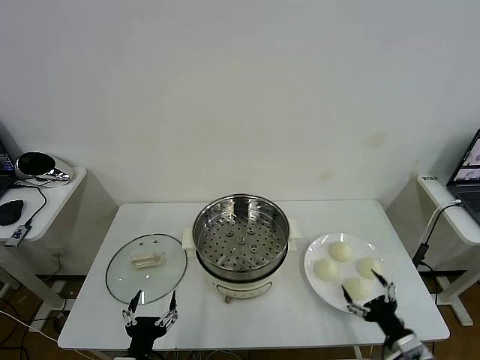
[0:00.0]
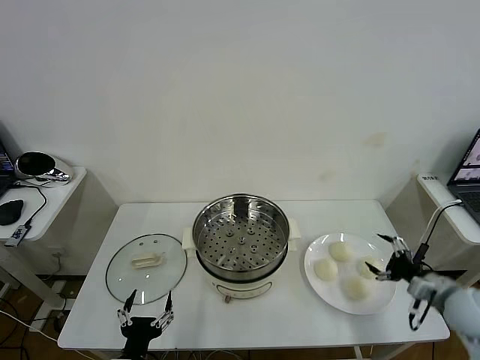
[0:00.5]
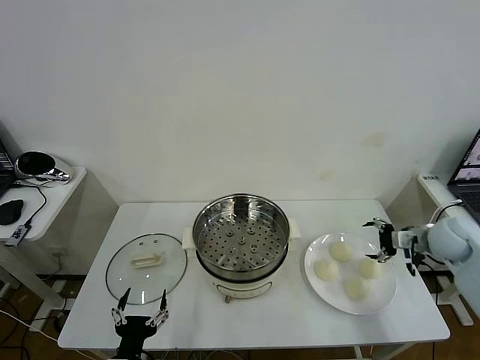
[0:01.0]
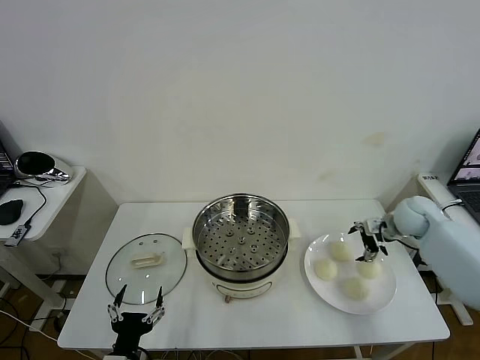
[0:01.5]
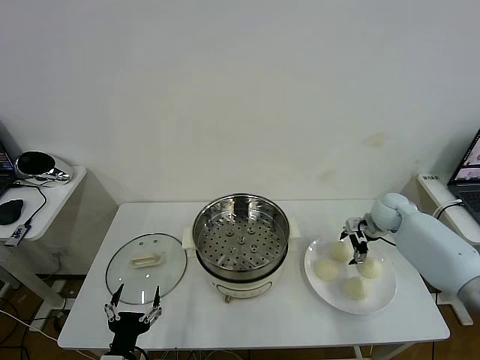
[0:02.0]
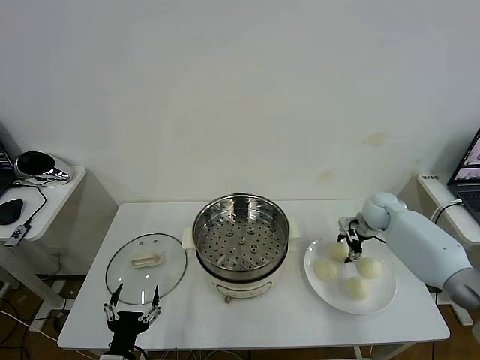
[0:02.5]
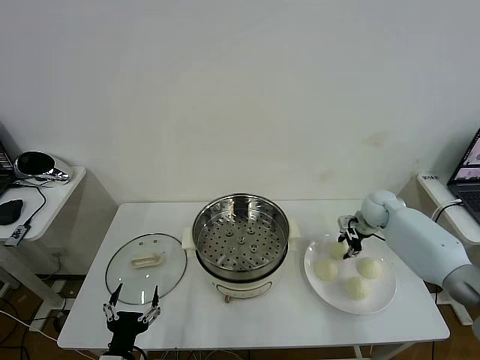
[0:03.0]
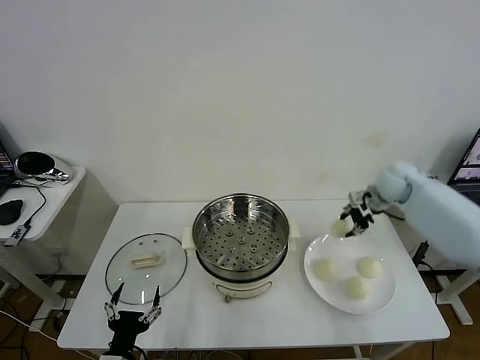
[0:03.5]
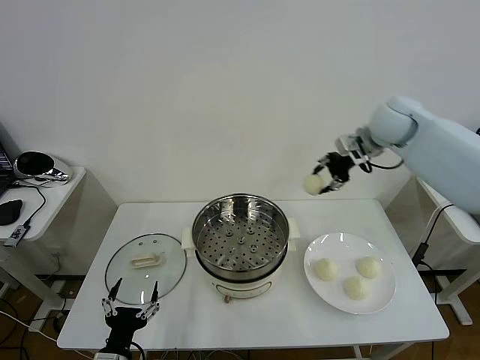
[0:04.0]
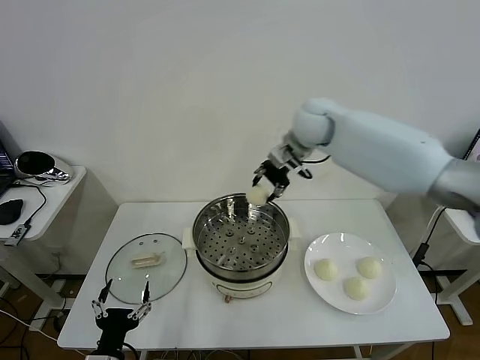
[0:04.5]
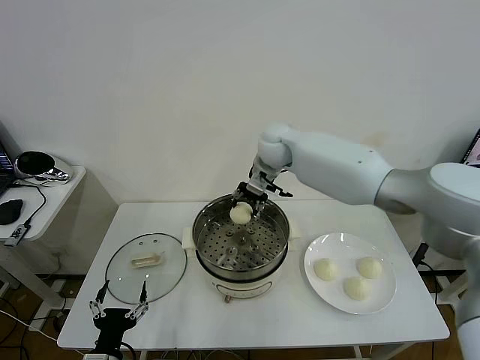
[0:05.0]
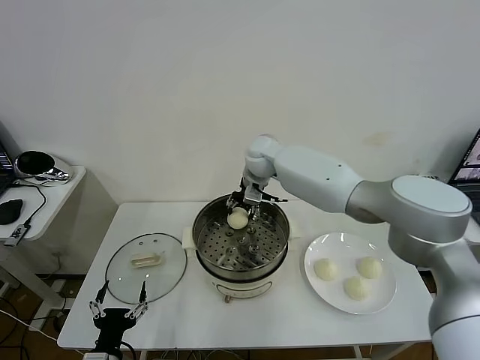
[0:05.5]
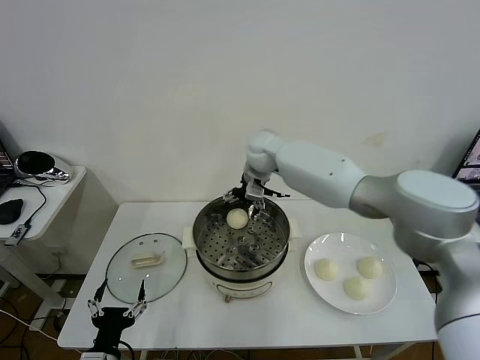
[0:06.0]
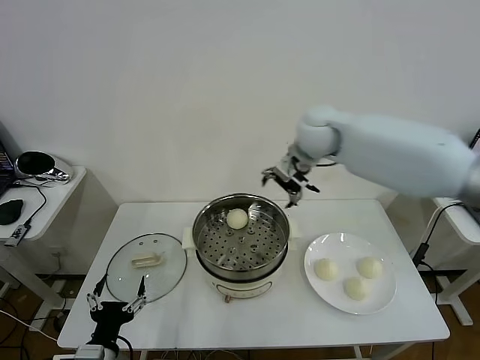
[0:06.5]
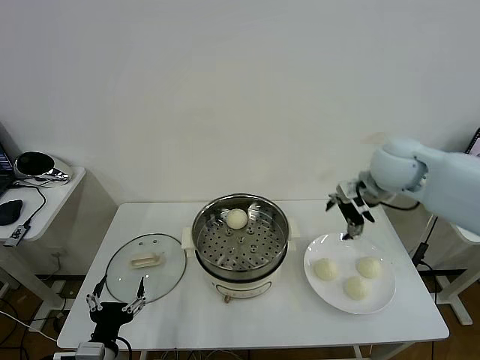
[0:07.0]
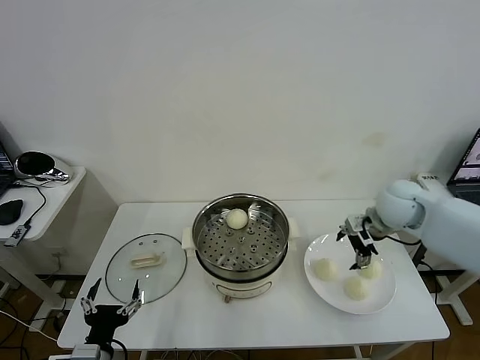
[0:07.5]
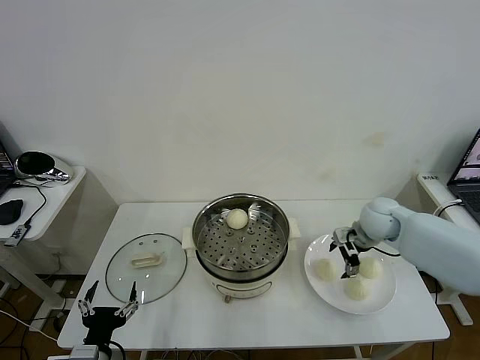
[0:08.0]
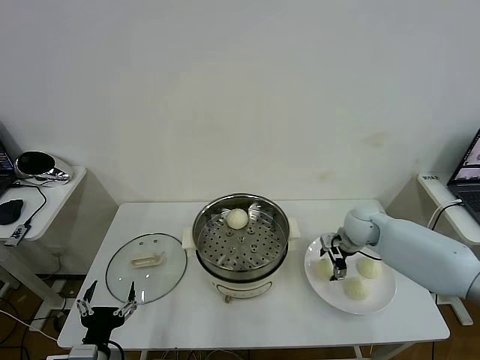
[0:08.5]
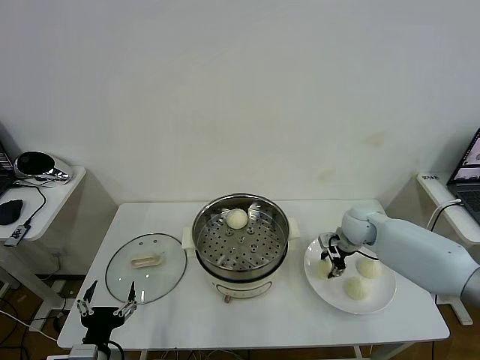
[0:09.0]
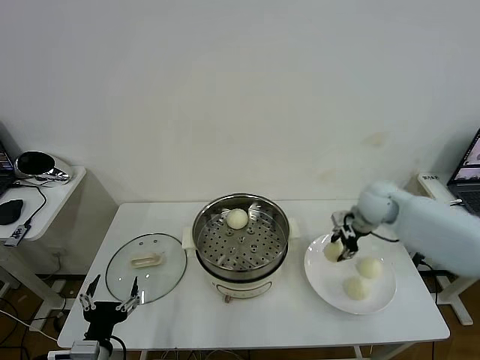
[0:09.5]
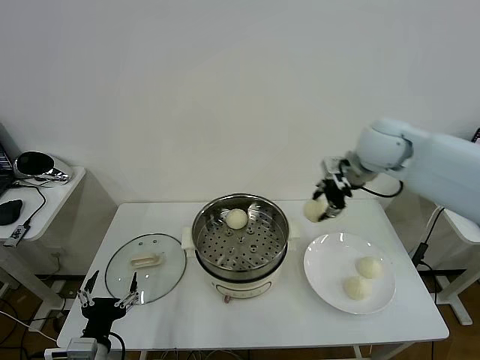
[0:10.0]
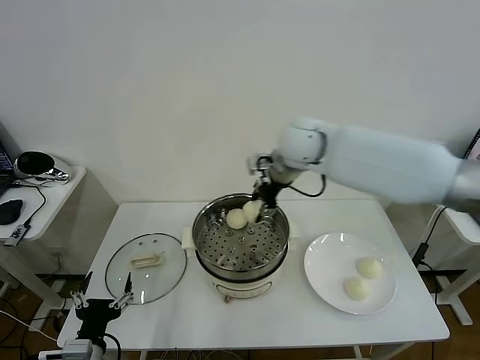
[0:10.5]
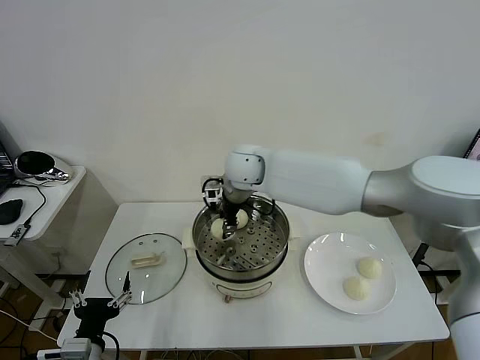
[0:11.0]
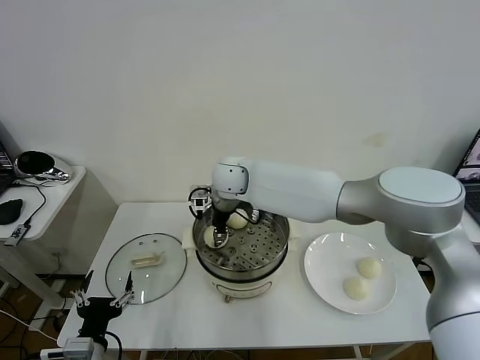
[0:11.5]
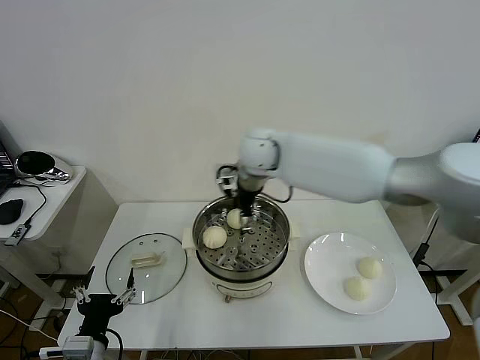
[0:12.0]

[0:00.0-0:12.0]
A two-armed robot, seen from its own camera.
Task of the whole recording: take steamed baozi put them in steamer then cover it.
Step, 0:00.0 to 0:02.5: Grasp the baozi in the plate with right gripper.
Step, 0:03.0 to 0:05.5: Place the baozi on the steamer with right gripper.
Step, 0:06.5 to 0:08.5: Grasp the baozi in the plate with right gripper.
Step, 0:09.0 to 0:11.5: Place the baozi on the steamer with right gripper.
0:02.0 to 0:04.0: The right gripper travels upward and to the left by about 30 cm, and closes its fingers.
0:04.0 to 0:06.0: The right gripper goes roughly 25 cm to the left and downward, and opens.
0:06.0 to 0:08.0: The right gripper travels to the right, downward and backward by about 30 cm.
0:08.0 to 0:10.0: The right gripper moves upward, some 20 cm, and closes.
0:10.0 to 0:12.0: The right gripper moves to the left, about 20 cm, and opens its fingers.

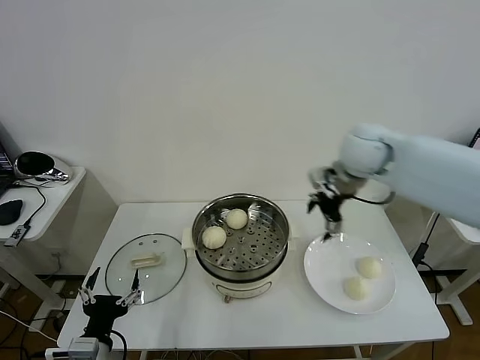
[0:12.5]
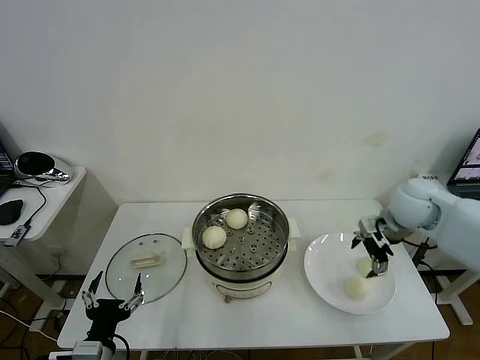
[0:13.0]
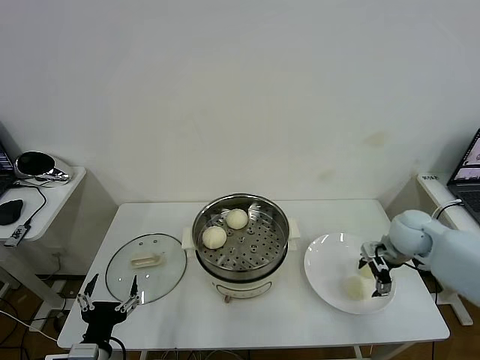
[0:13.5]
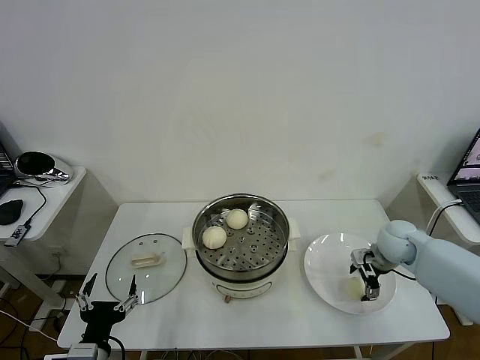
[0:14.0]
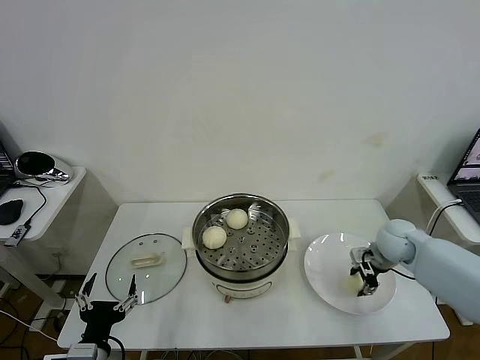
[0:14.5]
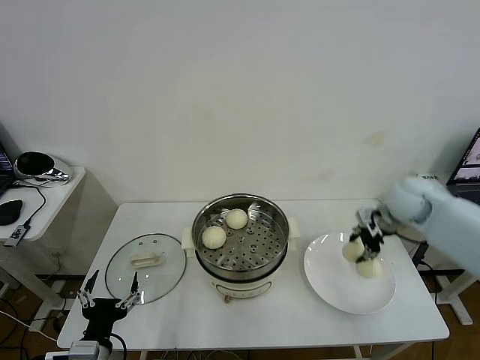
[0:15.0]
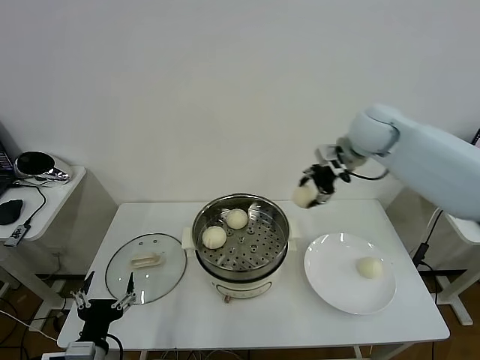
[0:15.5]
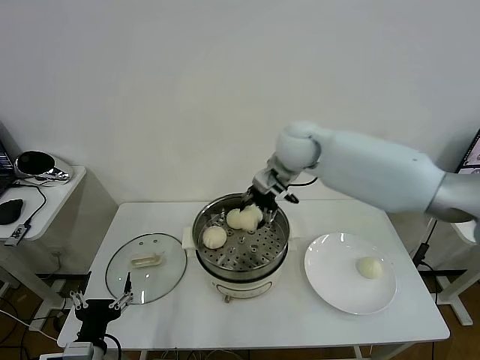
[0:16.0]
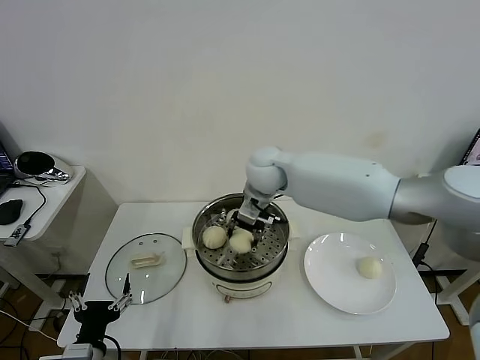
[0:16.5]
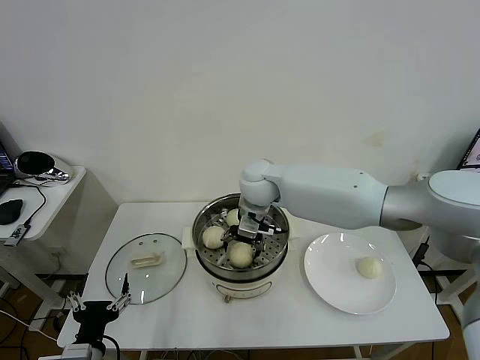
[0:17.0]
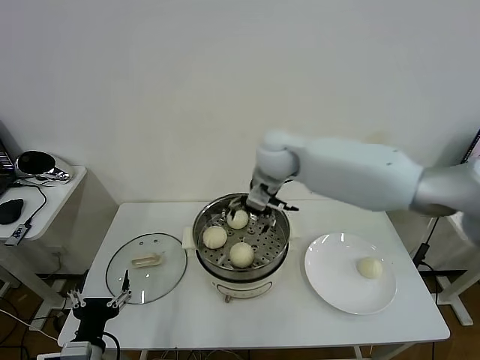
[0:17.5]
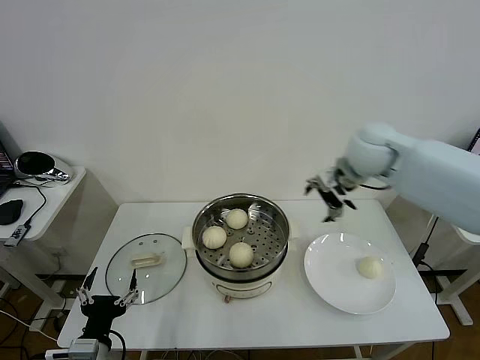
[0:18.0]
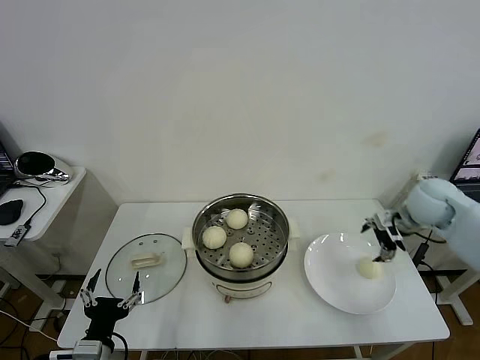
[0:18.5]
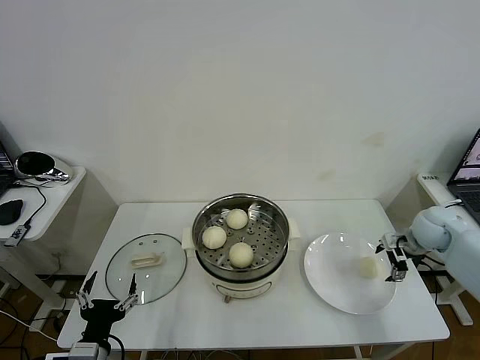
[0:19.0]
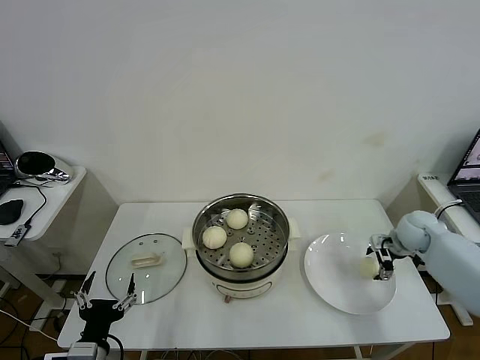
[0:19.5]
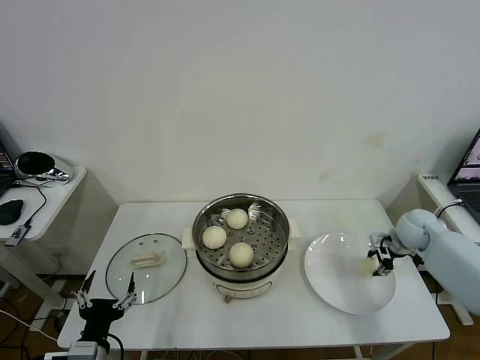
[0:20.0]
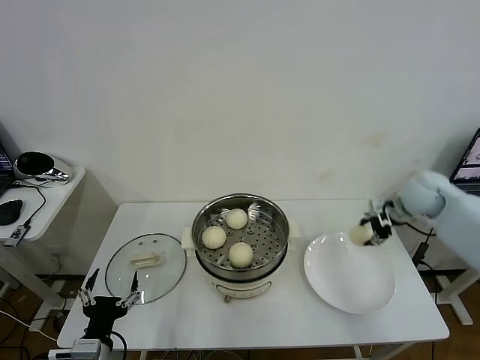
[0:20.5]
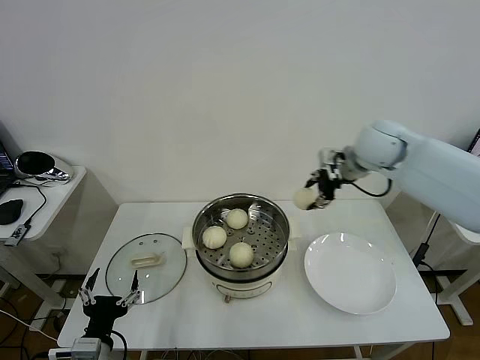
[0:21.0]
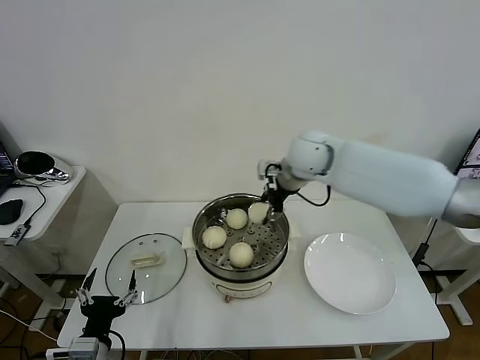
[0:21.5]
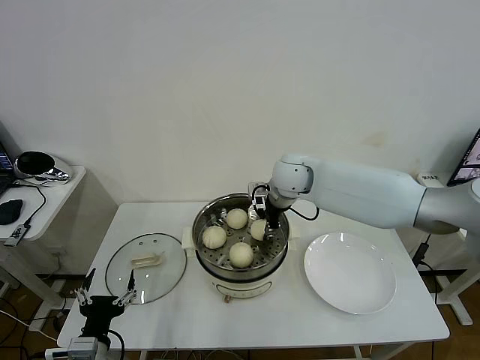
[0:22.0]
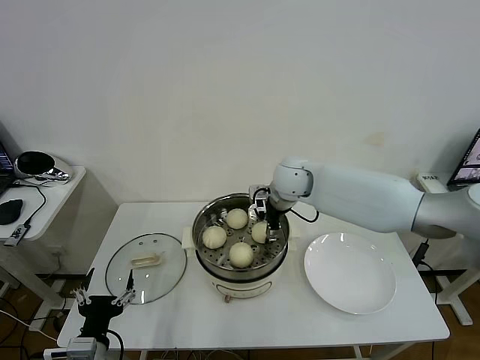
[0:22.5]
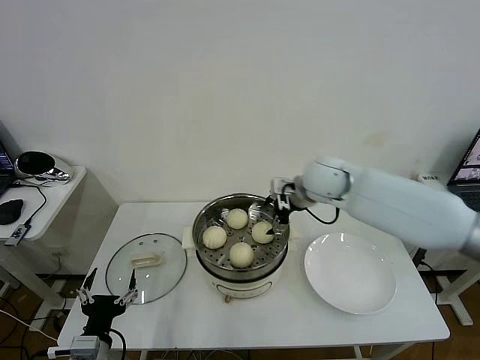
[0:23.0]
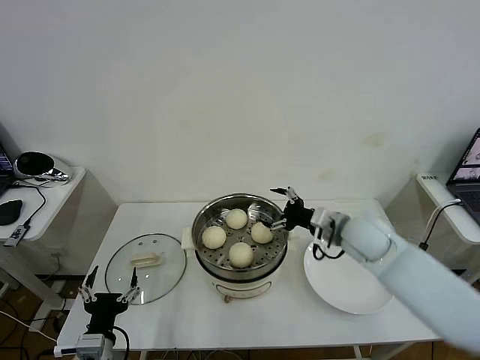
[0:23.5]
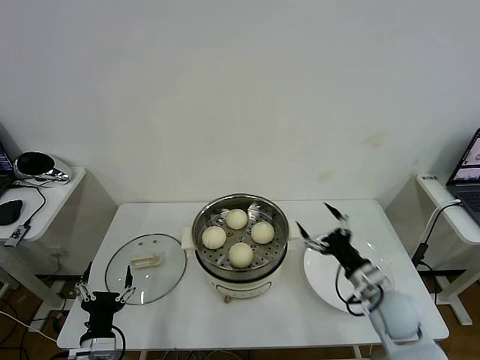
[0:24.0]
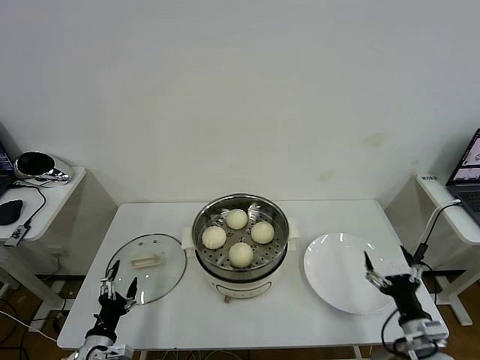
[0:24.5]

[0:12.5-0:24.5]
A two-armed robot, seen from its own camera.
Task of the whole recording: take steamed baozi put them in steamer then cover it.
Step, 0:12.5 to 0:14.0: Grasp the baozi in the plate with right gripper.
Step, 0:14.5 to 0:17.0: Place the baozi on the steamer with right gripper.
Step, 0:18.0 to 0:19.5: Grasp the baozi in the plate with right gripper.
Step, 0:20.0 to 0:22.5: Place the baozi on the steamer with right gripper.
0:12.5 to 0:14.5: The right gripper goes some 25 cm downward and to the right, and closes.
0:14.5 to 0:16.5: The right gripper travels to the left and upward by some 35 cm.
0:16.5 to 0:18.5: The right gripper moves to the right, about 35 cm, and opens up.
0:18.5 to 0:20.5: The right gripper reaches roughly 10 cm downward, then returns, and closes.
0:20.5 to 0:22.5: The right gripper travels to the left by some 30 cm, and opens its fingers.
0:22.5 to 0:24.5: The left gripper is displaced downward by about 10 cm. The right gripper heads backward, to the right and downward, covering approximately 50 cm.

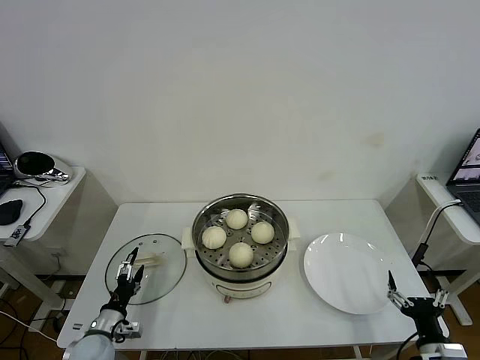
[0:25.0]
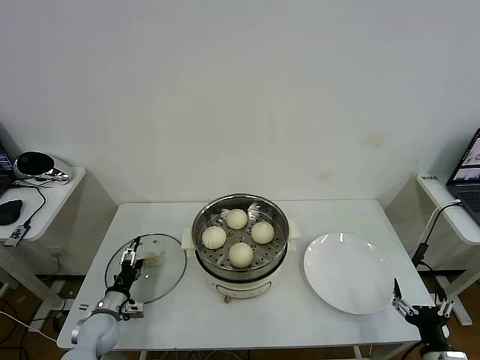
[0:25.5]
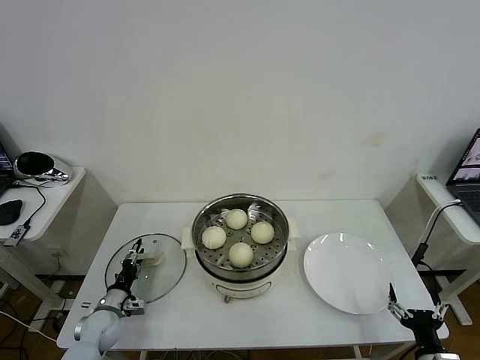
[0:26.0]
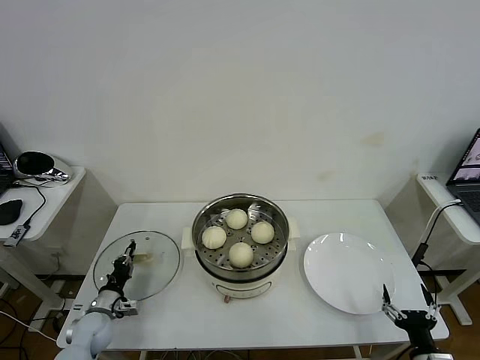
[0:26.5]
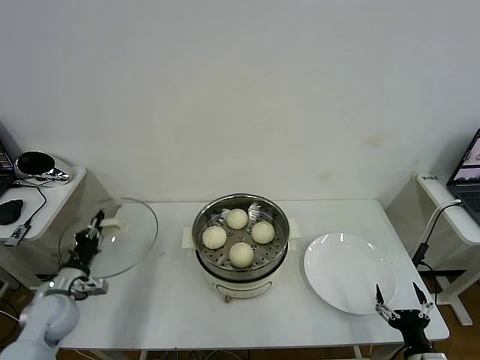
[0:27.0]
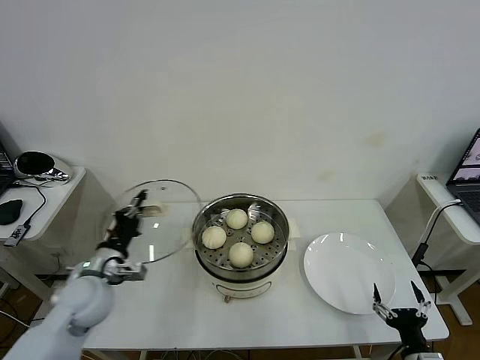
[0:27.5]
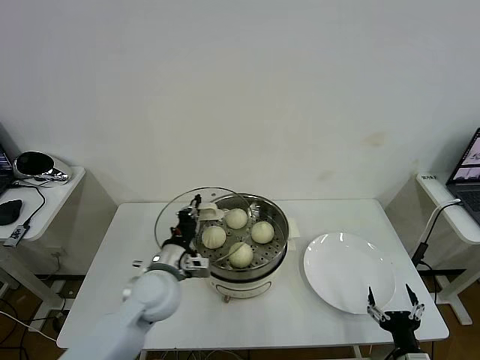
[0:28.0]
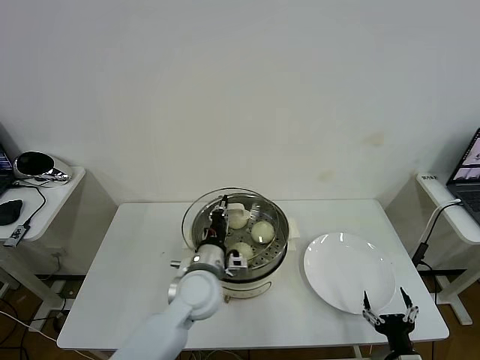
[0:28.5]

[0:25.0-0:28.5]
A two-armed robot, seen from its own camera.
Task of the whole recording: take steamed baozi put them in steamer then cover it.
0:25.0 to 0:27.0: The left gripper moves upward, to the left and forward, some 10 cm, and closes its fingers.
0:27.0 to 0:28.5: The left gripper shifts some 30 cm to the right.
